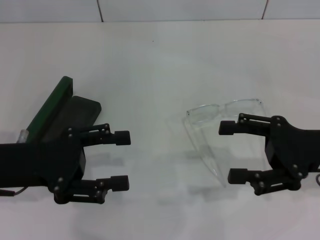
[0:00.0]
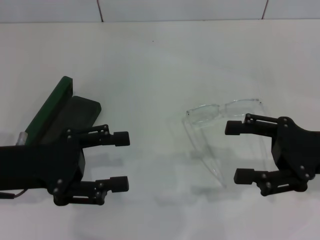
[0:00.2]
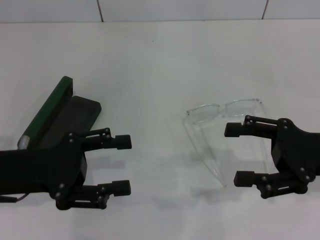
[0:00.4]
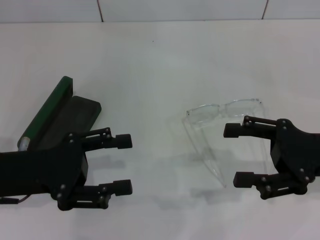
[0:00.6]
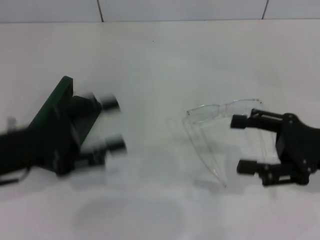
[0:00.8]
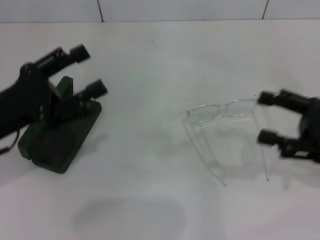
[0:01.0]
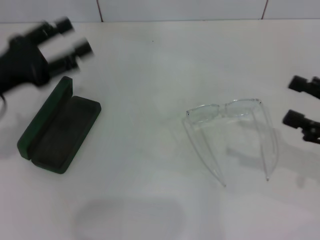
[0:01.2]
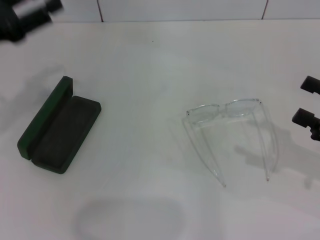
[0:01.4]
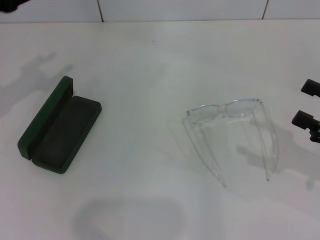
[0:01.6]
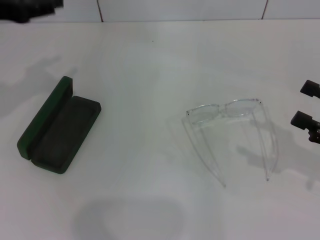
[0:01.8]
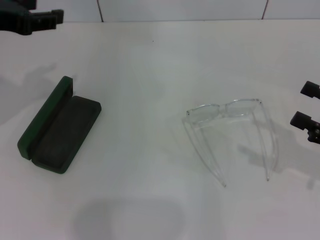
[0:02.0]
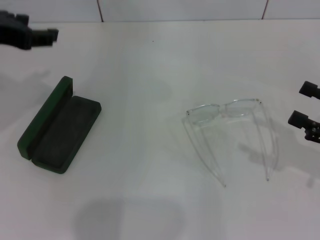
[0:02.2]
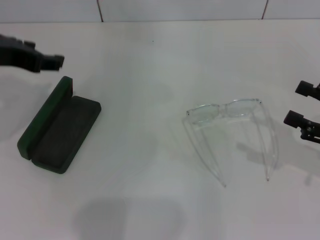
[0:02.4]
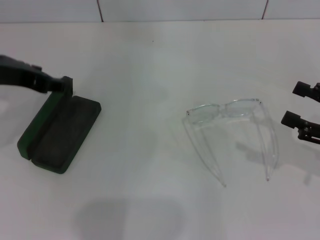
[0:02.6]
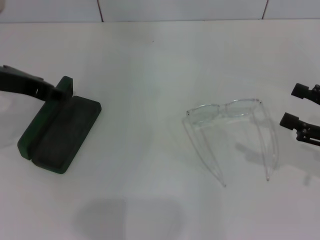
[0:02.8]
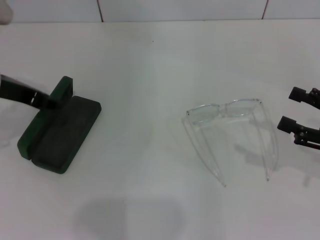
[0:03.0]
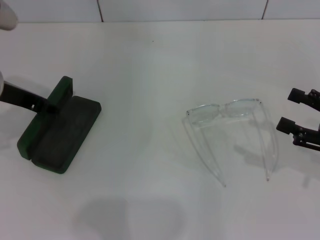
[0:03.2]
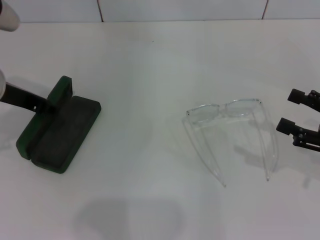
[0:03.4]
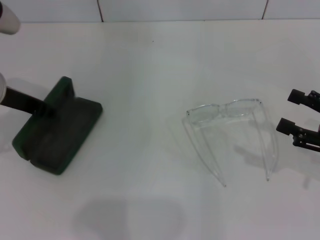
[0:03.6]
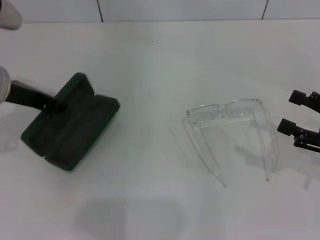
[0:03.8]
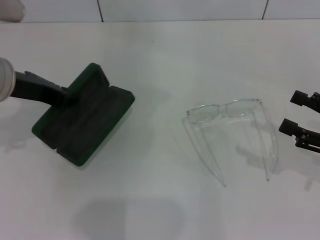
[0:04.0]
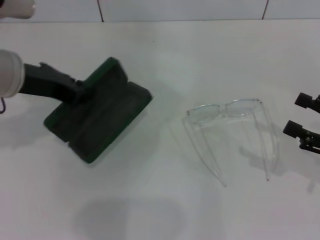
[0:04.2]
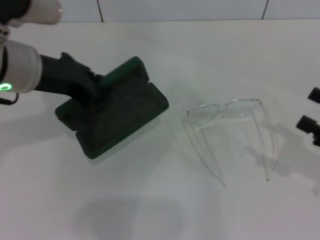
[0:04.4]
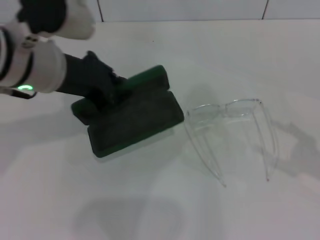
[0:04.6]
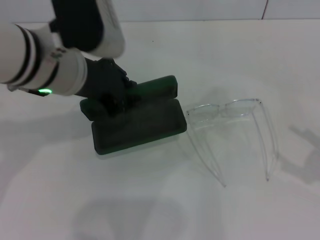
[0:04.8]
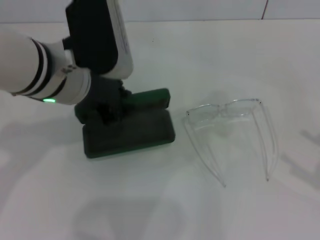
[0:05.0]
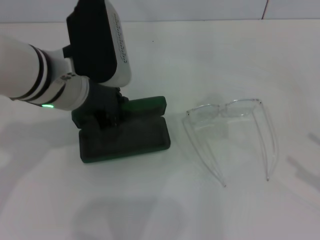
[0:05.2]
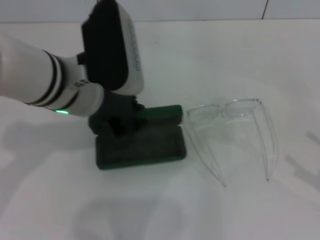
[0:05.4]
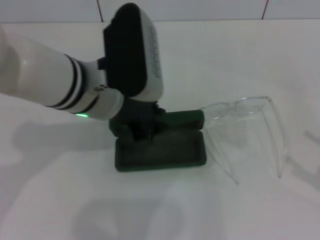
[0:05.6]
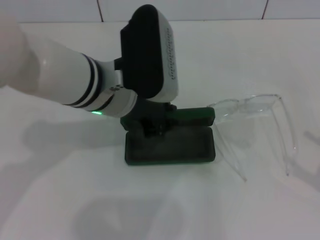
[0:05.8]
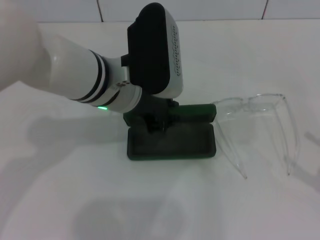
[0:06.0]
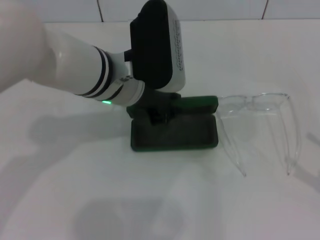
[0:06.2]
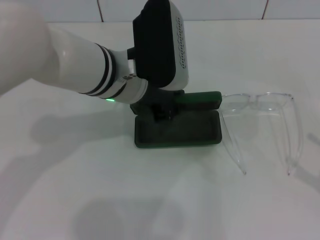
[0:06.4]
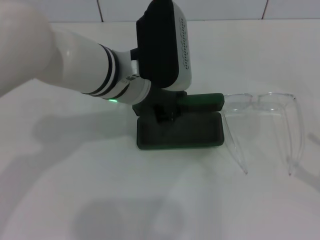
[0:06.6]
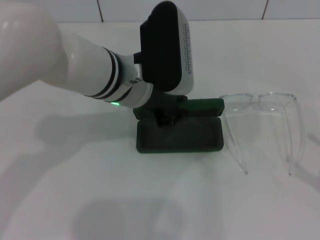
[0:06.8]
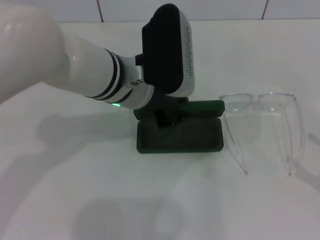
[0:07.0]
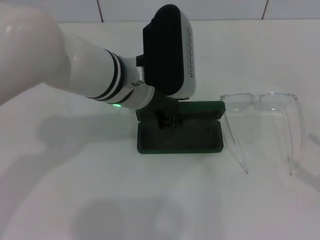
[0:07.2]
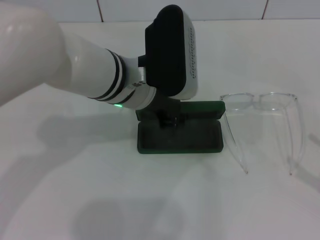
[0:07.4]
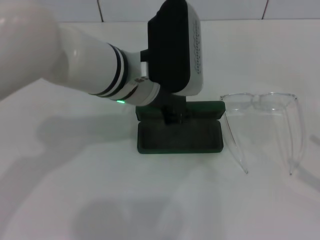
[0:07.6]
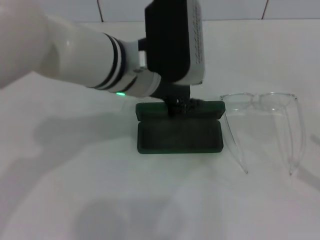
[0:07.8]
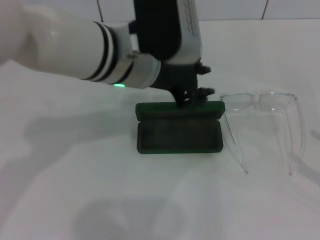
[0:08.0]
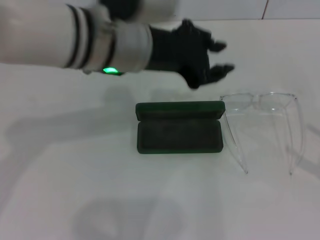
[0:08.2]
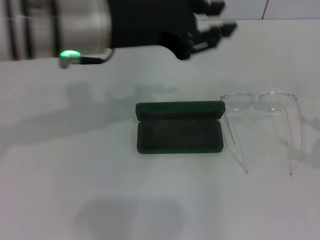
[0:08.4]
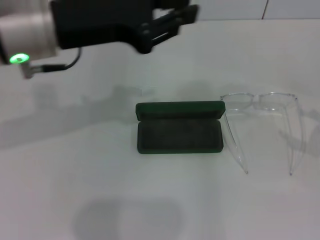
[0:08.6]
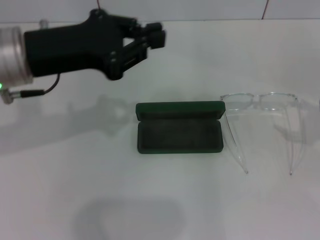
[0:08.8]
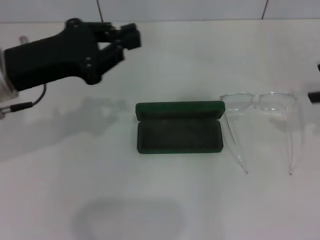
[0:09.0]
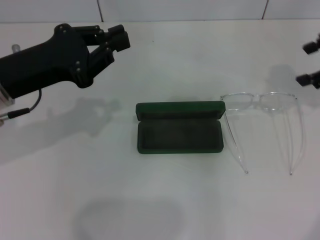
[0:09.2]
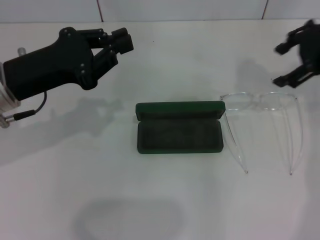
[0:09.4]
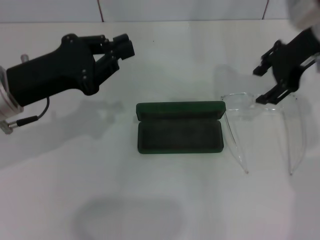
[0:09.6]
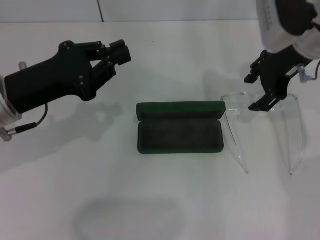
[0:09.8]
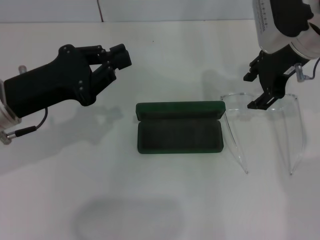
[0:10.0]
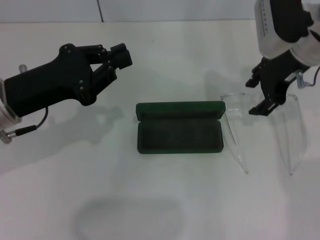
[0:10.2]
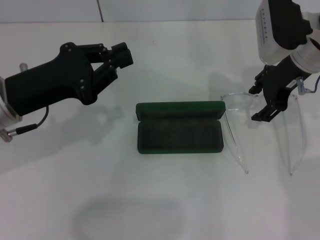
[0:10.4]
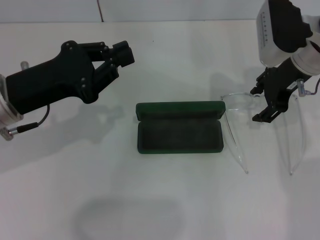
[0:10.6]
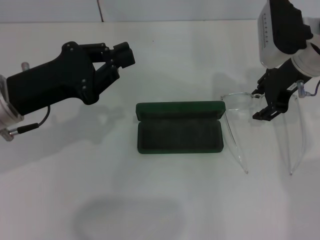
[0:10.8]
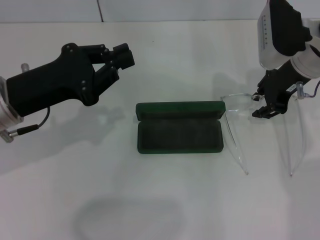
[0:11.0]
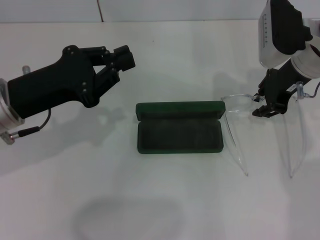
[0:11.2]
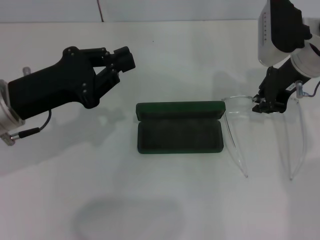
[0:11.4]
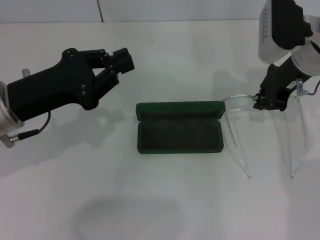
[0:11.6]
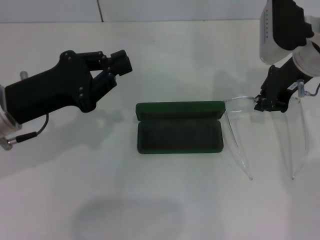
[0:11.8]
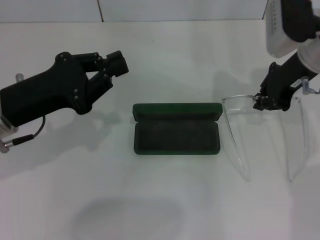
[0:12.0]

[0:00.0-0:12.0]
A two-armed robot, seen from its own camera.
Step, 0:00.0 to 0:03.2: Grab the glasses case with your left hand.
Step, 0:03.4 to 0:07.2: Place the glasses case in the center of the table with your left hand.
Step, 0:07.4 to 0:11.6: Grab the eyeglass frame with your right hand.
0:00.0 to 0:01.6: The left gripper shifts some 15 cm upward and forward, while the right gripper goes some 10 cm to the right.
0:01.6 to 0:03.0: The left gripper travels to the right by roughly 5 cm.
0:03.0 to 0:04.4: The left gripper travels to the right by approximately 5 cm, and closes its fingers.
0:04.4 to 0:06.0: The right gripper is displaced backward by roughly 5 cm. The left gripper is displaced to the right by approximately 10 cm.
0:06.0 to 0:07.6: The grippers move only a little.
0:07.6 to 0:09.0: The right gripper heads forward and upward, covering about 20 cm, while the left gripper moves to the left, roughly 15 cm.
0:09.0 to 0:10.4: The right gripper travels to the left and forward by about 20 cm.
0:10.4 to 0:12.0: The right gripper closes.

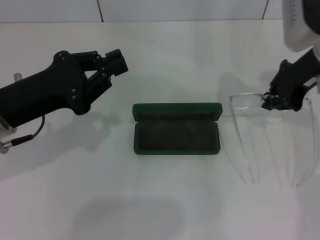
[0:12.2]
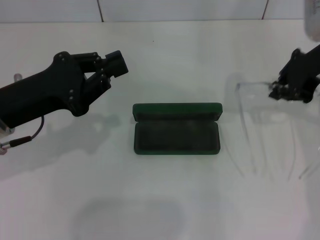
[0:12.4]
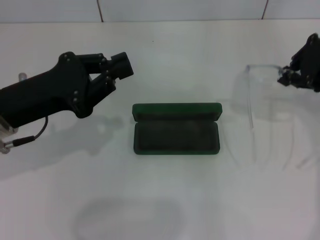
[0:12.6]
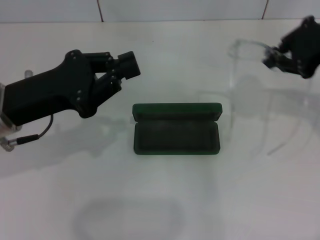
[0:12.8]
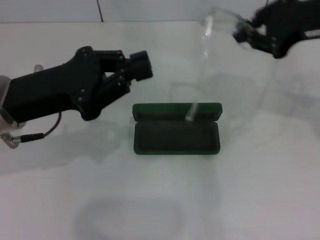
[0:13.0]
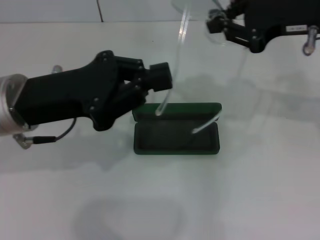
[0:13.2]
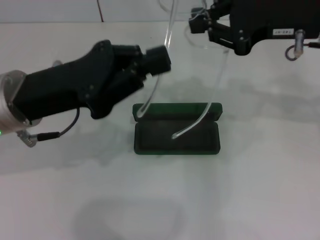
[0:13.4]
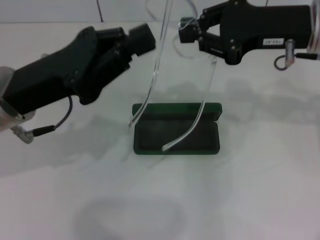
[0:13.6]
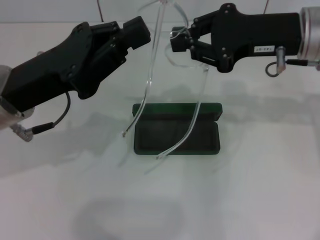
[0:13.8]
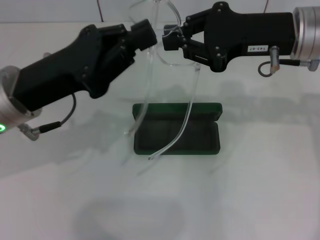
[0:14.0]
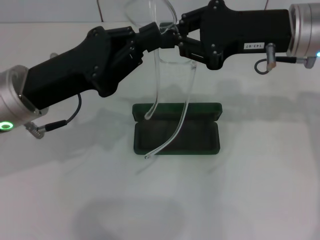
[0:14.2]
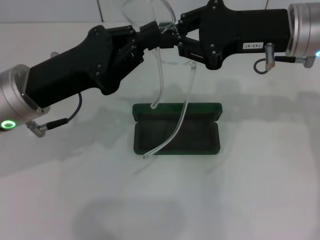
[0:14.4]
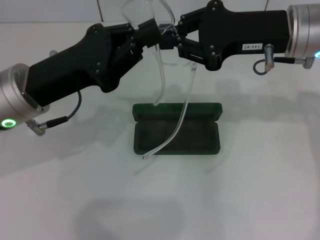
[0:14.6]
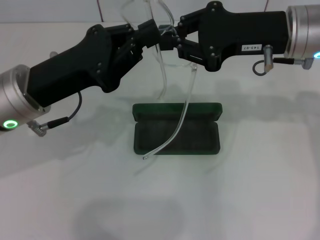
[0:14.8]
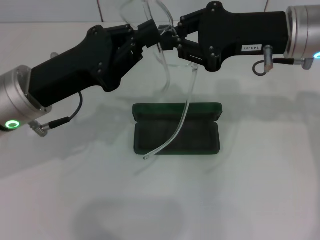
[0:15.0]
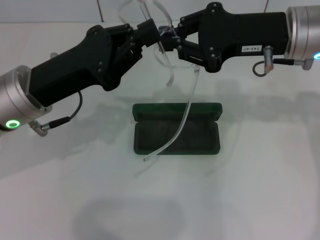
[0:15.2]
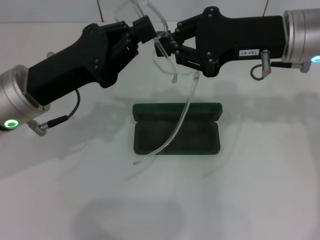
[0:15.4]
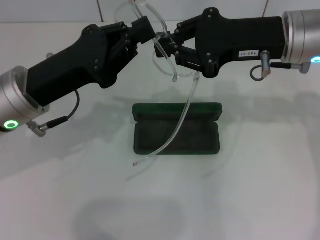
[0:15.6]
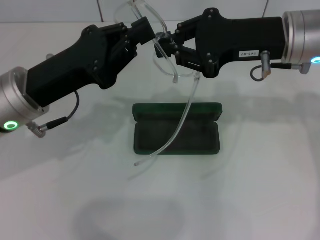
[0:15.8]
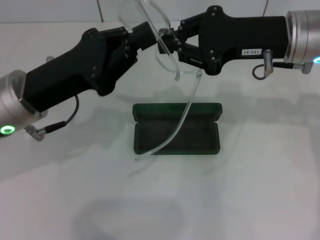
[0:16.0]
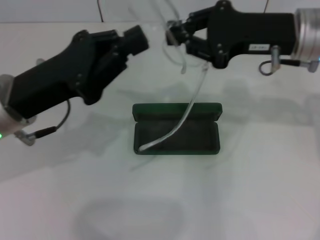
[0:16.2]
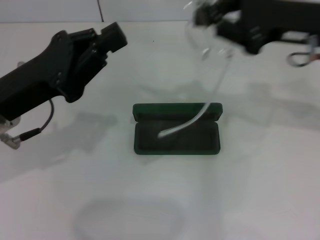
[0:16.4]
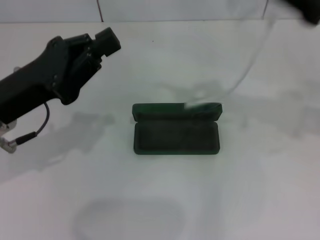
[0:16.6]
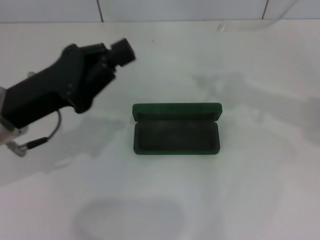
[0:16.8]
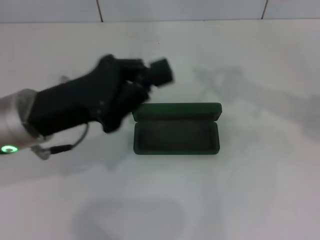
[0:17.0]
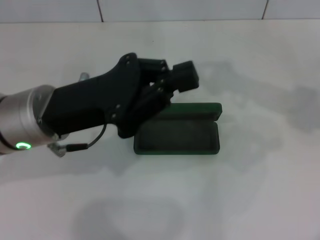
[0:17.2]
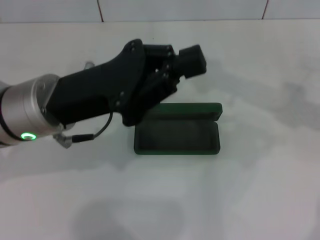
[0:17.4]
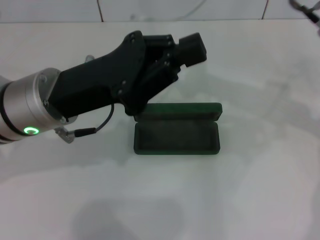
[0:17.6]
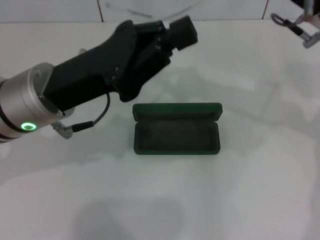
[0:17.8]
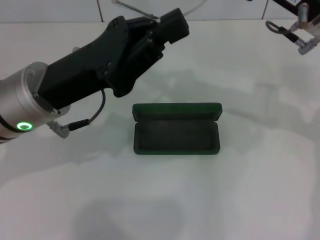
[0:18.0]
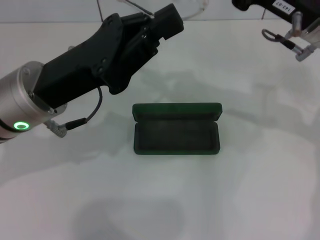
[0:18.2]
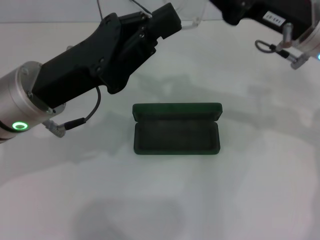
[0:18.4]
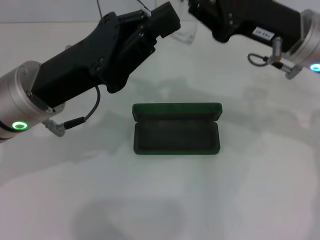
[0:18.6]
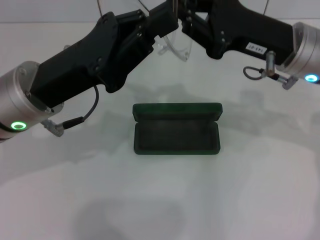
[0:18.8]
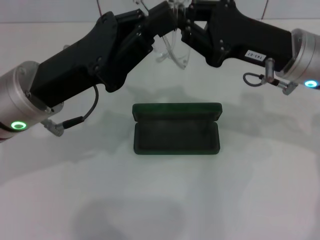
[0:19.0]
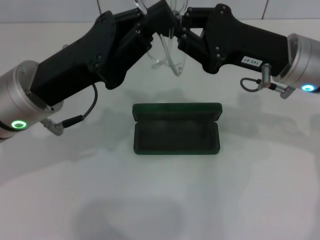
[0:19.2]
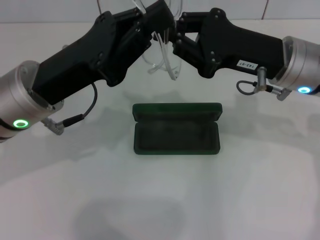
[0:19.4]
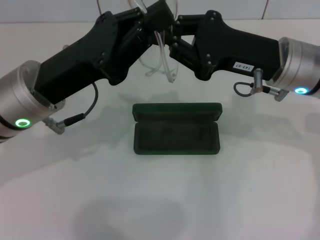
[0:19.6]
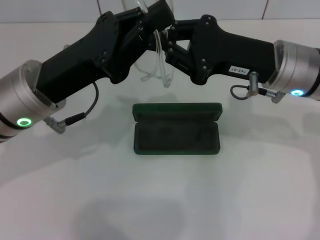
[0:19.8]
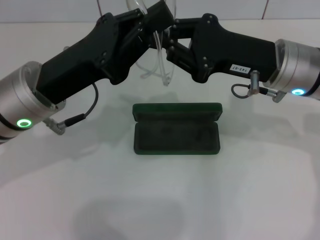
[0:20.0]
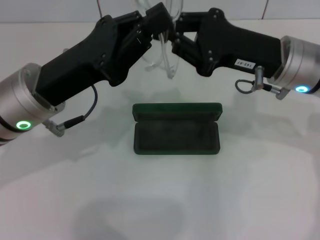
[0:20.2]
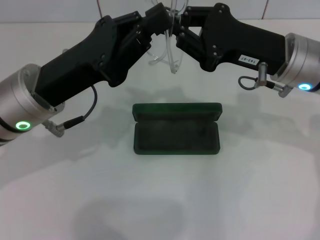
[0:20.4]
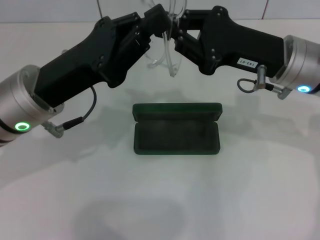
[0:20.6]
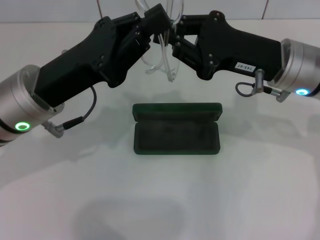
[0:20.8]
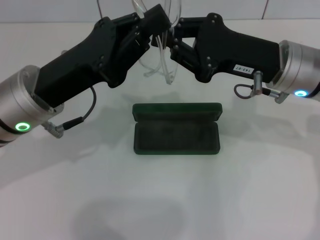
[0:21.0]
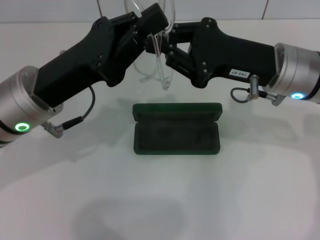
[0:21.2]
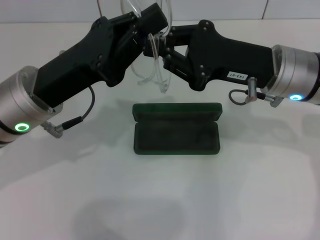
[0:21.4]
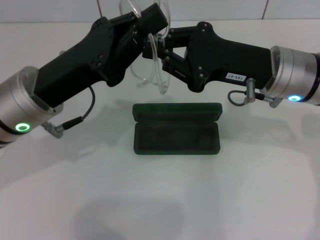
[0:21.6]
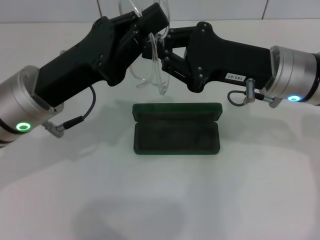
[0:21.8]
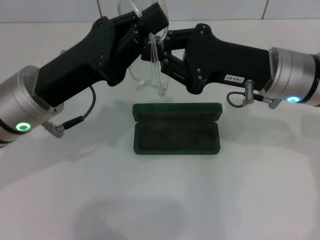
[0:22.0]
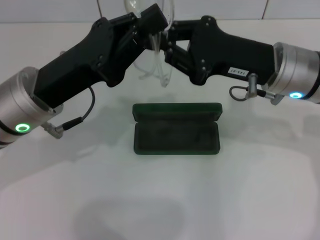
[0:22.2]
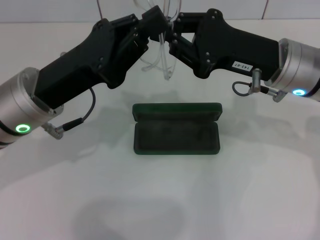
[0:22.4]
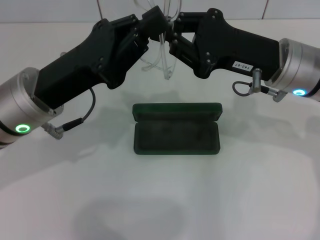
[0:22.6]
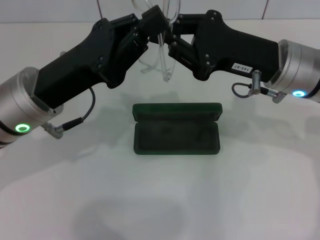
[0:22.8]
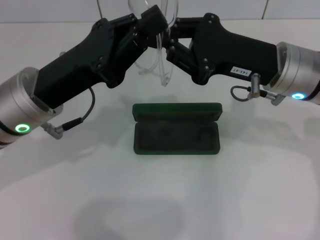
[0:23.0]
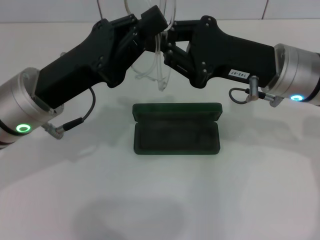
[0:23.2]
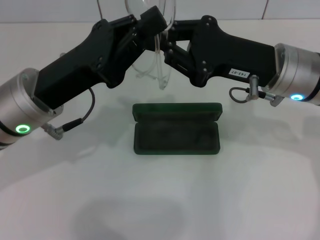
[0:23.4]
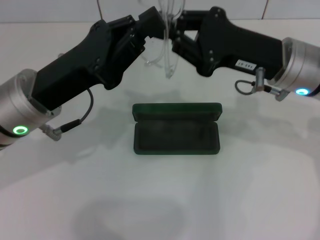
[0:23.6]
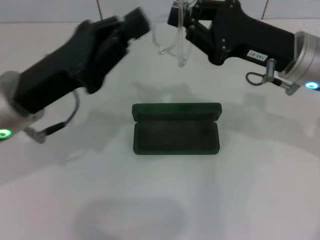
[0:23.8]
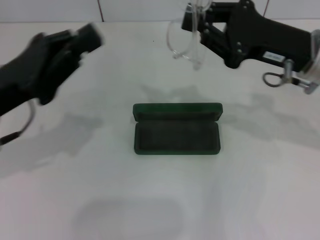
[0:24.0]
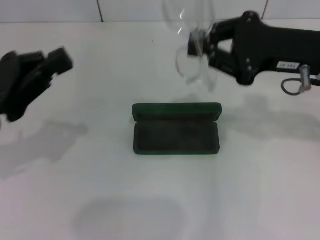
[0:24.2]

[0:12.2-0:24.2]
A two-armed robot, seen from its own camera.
Step, 0:12.2 to 0:20.2: Fold the frame with your left hand.
0:13.8 to 0:15.2: The grippers make only small movements.
0:15.2 to 0:16.6: The right gripper moves to the right, approximately 10 cm.
0:16.6 to 0:18.2: The right gripper moves to the left, approximately 5 cm, while the left gripper moves to the right, approximately 5 cm.
0:18.2 to 0:19.8: The right gripper shifts by approximately 5 cm.
0:19.8 to 0:22.6: The two grippers keep their place.
0:22.6 to 0:24.2: The left gripper moves to the left, about 10 cm. Meanwhile the right gripper shifts by about 5 cm.
